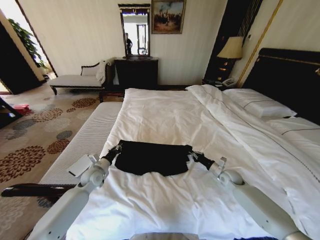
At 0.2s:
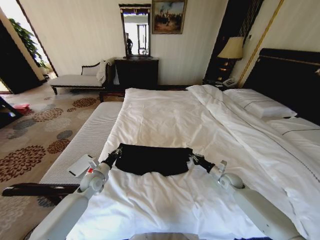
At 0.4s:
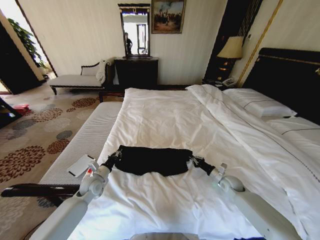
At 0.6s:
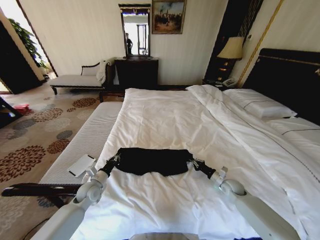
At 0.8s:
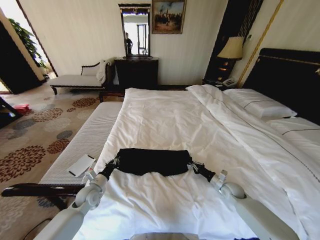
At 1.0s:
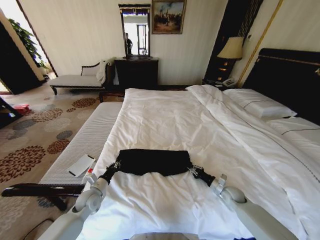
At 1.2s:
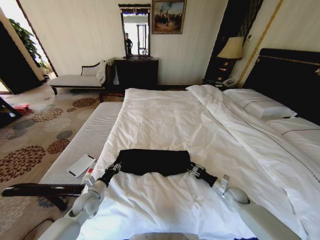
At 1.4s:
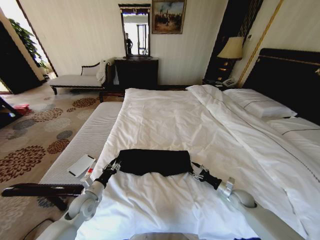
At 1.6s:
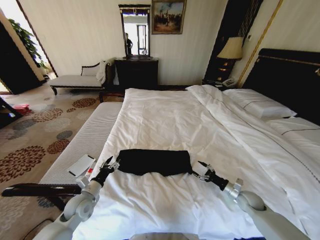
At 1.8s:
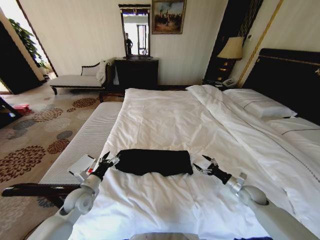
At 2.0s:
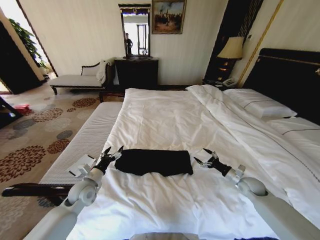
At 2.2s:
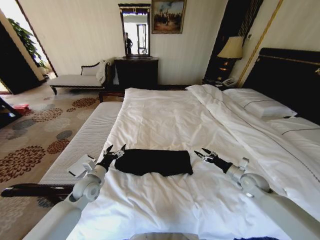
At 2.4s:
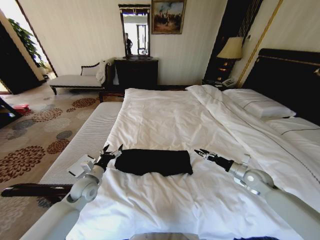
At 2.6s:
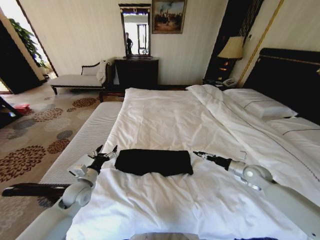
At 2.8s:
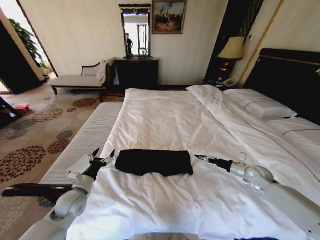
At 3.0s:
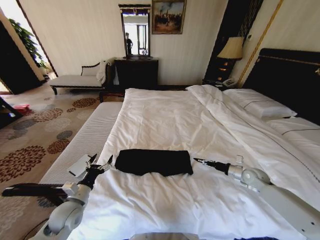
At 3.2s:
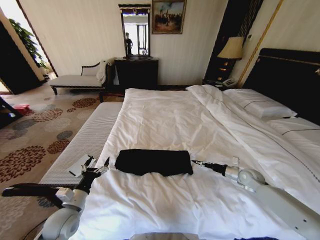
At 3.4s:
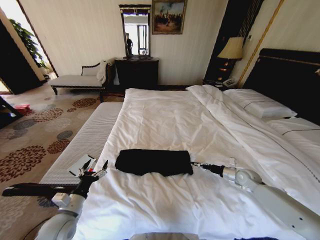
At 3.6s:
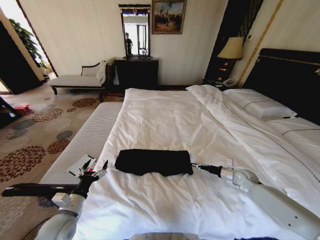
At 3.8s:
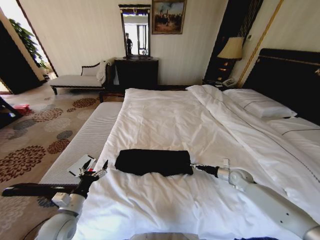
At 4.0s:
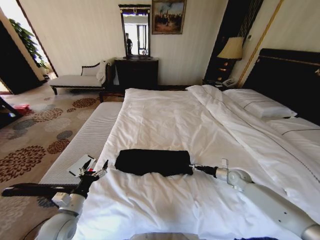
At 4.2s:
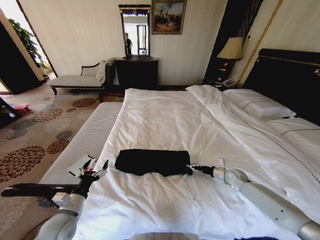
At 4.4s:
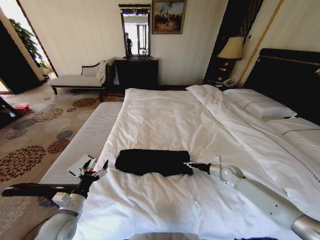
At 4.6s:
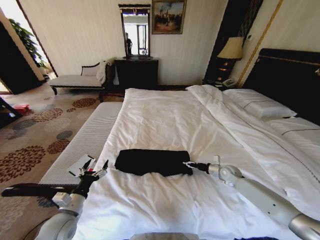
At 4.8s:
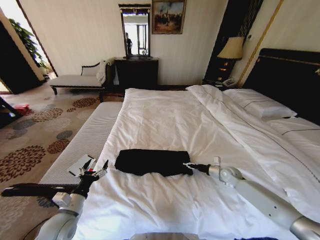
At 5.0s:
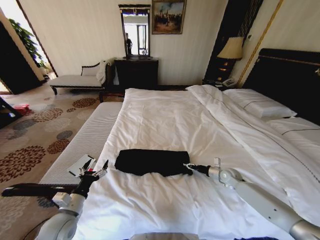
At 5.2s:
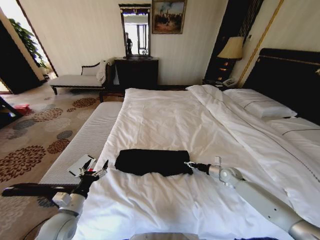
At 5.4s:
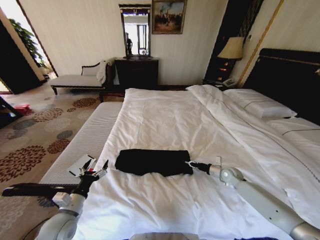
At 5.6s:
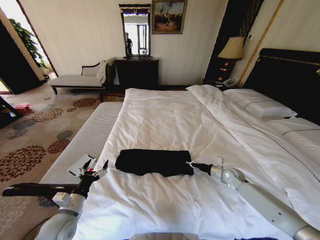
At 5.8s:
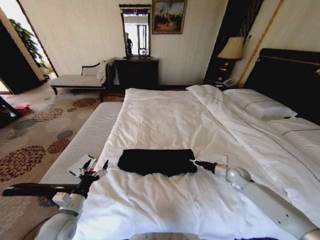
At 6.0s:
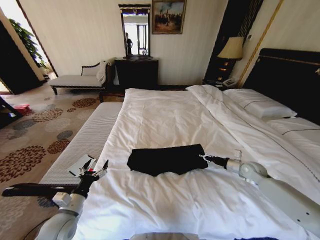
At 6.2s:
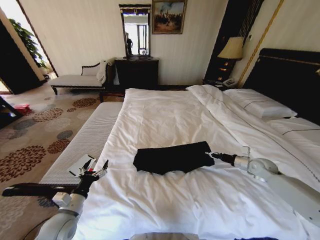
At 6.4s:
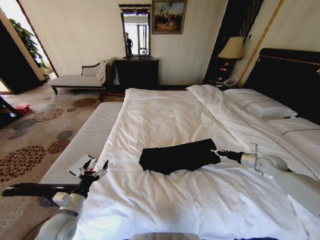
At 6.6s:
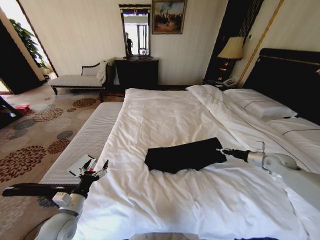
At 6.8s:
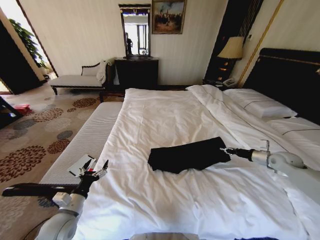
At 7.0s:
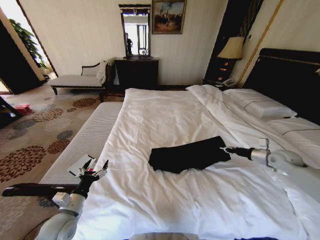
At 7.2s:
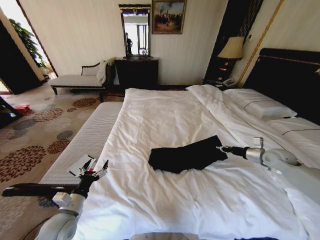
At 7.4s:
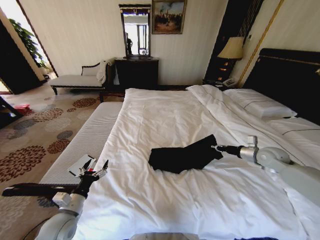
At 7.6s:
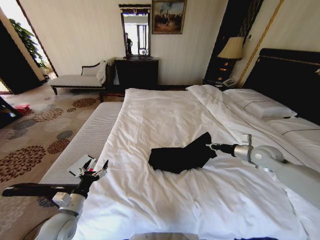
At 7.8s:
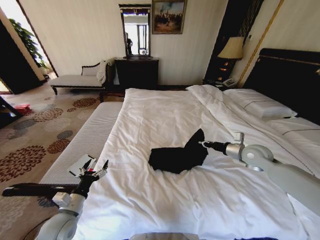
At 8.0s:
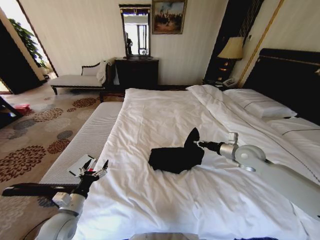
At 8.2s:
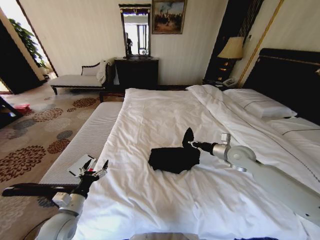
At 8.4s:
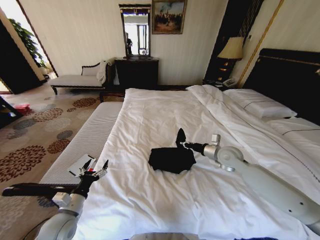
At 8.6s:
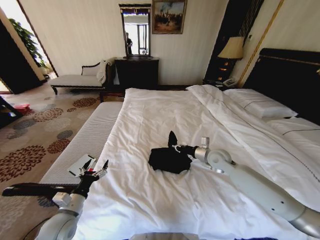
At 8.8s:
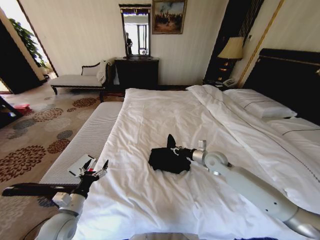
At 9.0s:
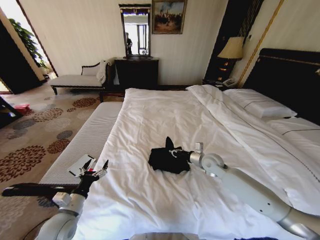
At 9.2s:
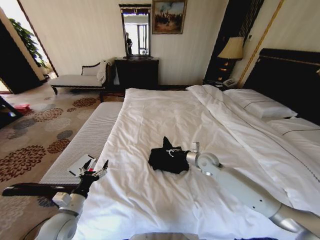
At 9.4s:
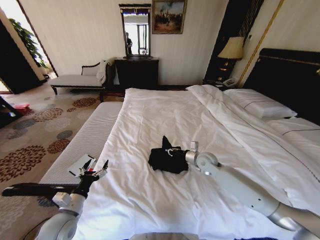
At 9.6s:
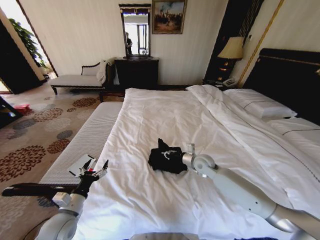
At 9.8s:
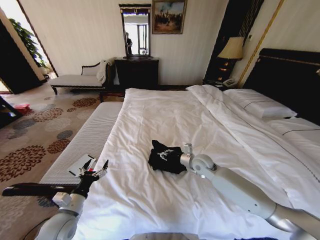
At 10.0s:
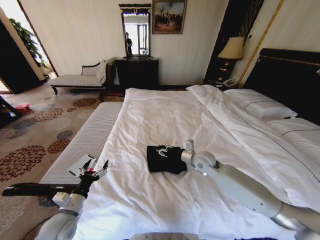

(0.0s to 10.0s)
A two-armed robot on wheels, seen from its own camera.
Task of the whole recording: Fold the clothes on the bed.
0.0s - 1.4s: The grippers both shift backward by about 10 cm. The right gripper opens up; the left gripper opens its fingers.
1.4s - 2.8s: The left gripper shifts approximately 5 cm upward, and opens. Meanwhile the right gripper shifts about 15 cm upward, forward and to the right.
2.8s - 4.2s: The right gripper goes some 10 cm downward; the left gripper heads backward, covering some 5 cm.
4.2s - 5.8s: The right gripper closes up.
5.8s - 7.2s: The right gripper goes approximately 20 cm upward and to the right.
7.2s - 8.6s: The right gripper heads to the left, covering roughly 25 cm.
8.6s - 10.0s: The right gripper shifts about 5 cm to the left, and opens up.

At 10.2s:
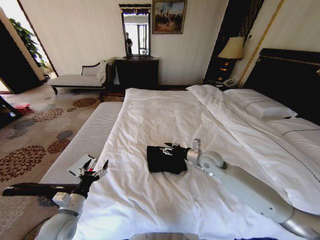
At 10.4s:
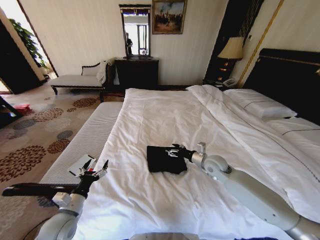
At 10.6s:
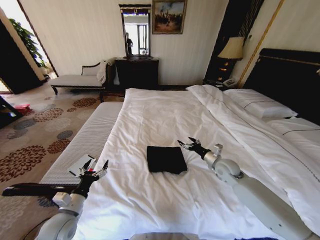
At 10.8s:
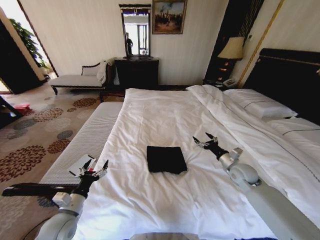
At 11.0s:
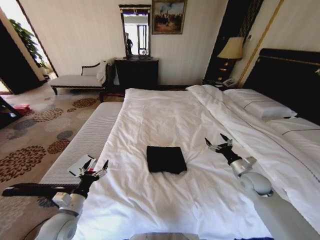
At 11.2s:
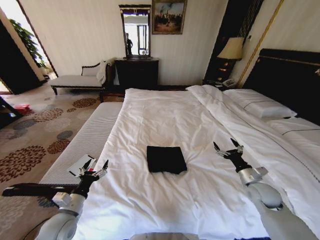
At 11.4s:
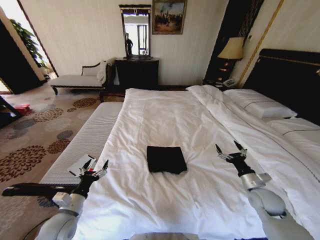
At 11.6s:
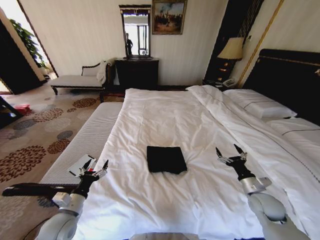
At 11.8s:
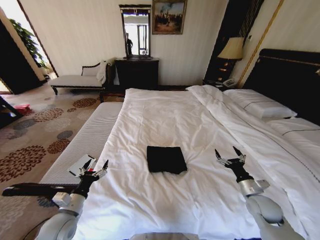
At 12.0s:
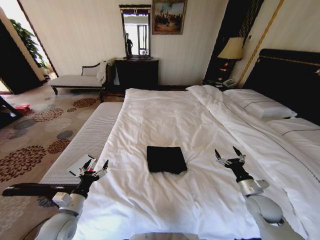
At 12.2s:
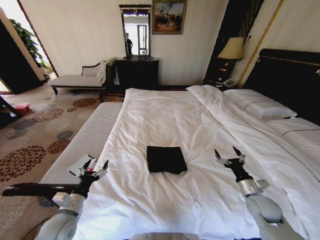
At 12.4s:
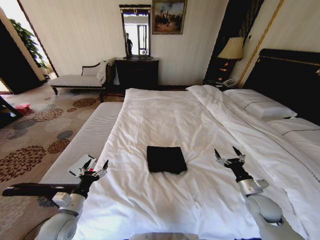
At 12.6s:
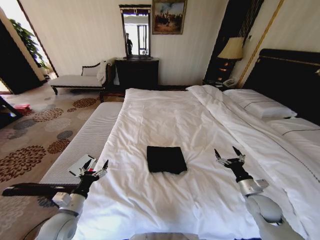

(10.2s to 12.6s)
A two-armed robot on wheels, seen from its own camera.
Task of the whole recording: Fold the clothes on the bed.
10.2s - 11.4s: The right gripper travels to the right and backward by approximately 25 cm.
11.4s - 12.6s: The grippers stay close to where they were, moving slightly.
